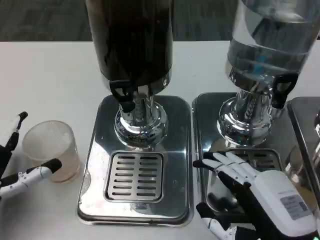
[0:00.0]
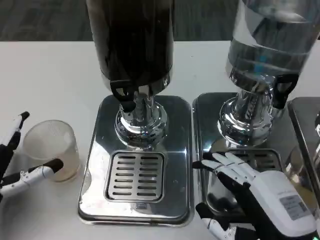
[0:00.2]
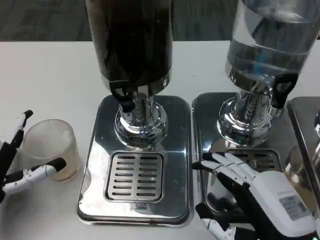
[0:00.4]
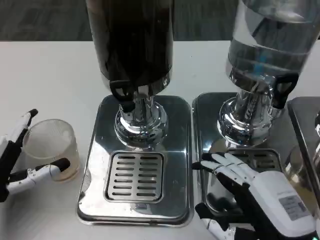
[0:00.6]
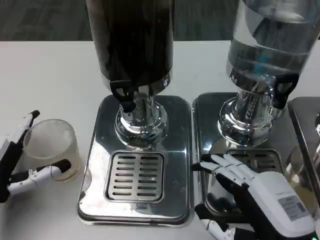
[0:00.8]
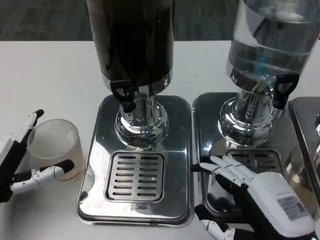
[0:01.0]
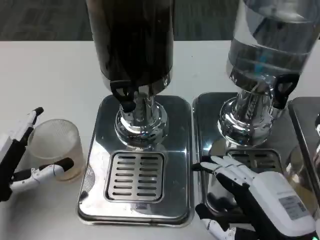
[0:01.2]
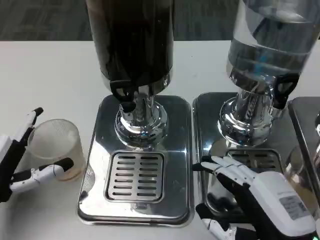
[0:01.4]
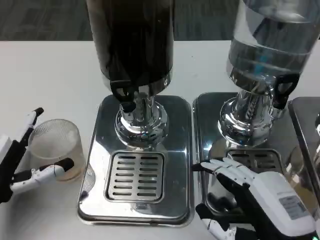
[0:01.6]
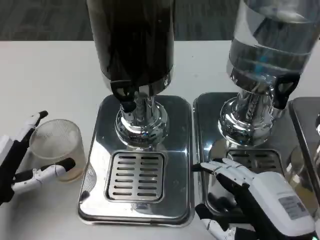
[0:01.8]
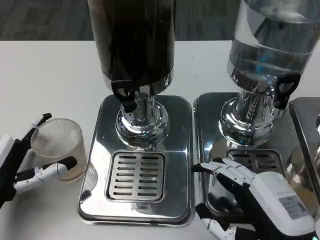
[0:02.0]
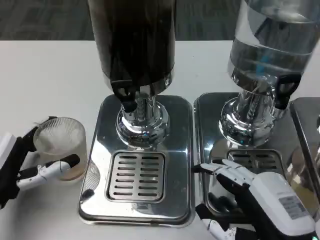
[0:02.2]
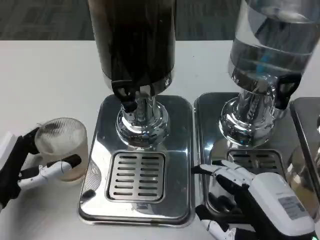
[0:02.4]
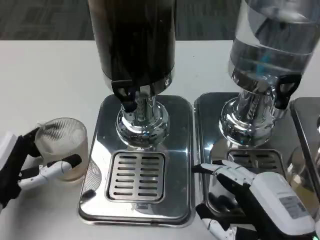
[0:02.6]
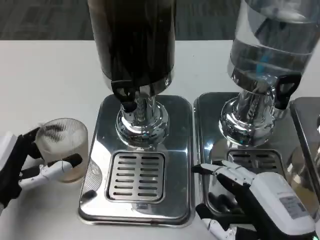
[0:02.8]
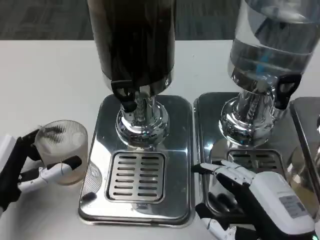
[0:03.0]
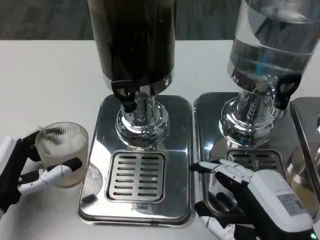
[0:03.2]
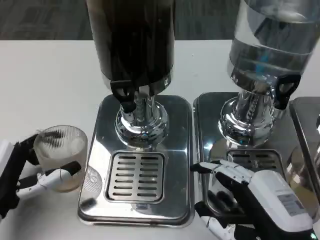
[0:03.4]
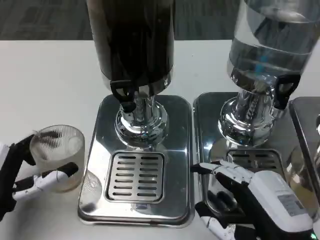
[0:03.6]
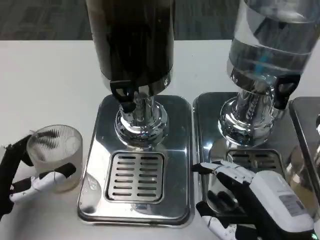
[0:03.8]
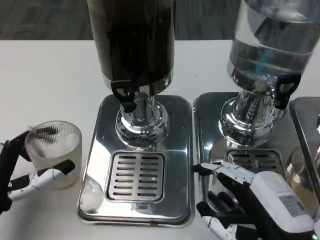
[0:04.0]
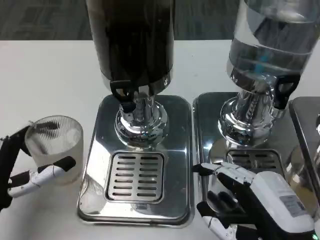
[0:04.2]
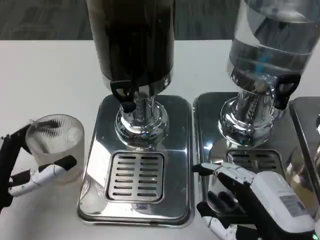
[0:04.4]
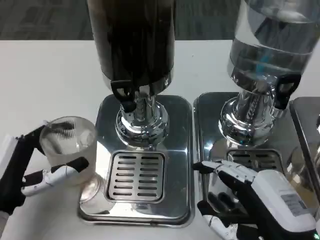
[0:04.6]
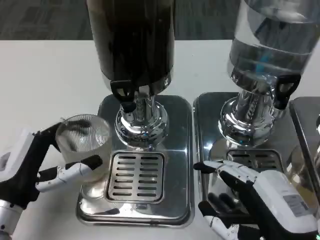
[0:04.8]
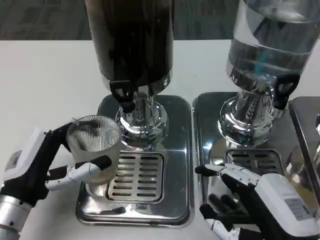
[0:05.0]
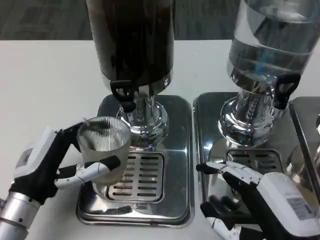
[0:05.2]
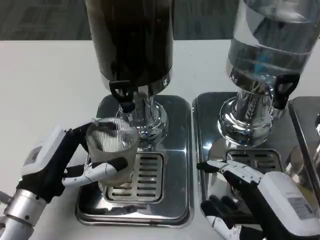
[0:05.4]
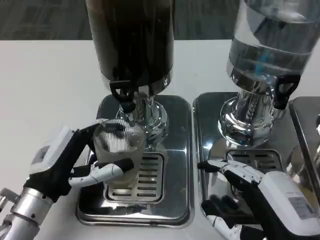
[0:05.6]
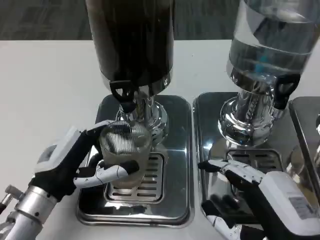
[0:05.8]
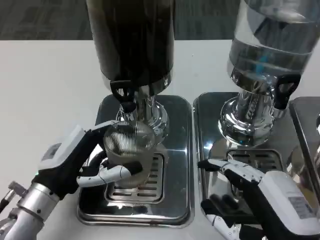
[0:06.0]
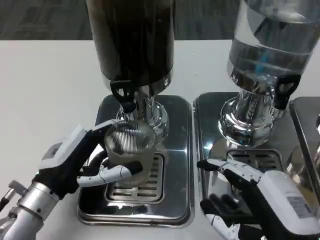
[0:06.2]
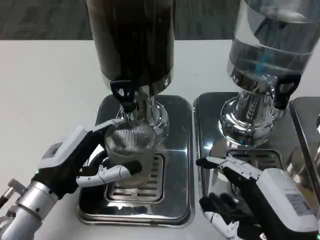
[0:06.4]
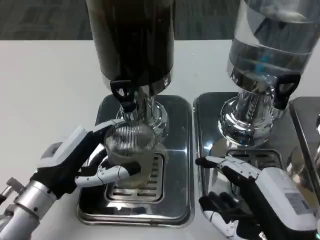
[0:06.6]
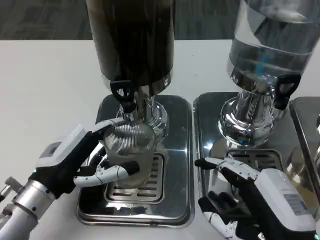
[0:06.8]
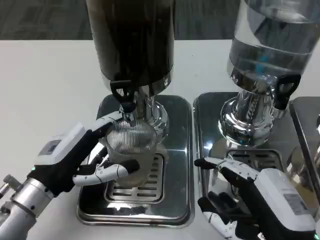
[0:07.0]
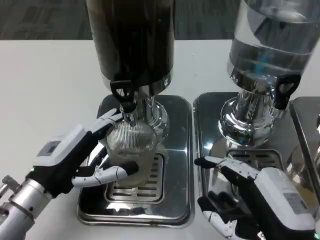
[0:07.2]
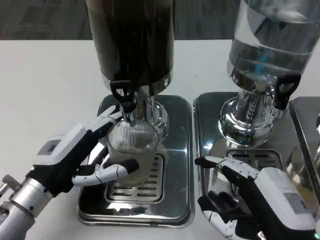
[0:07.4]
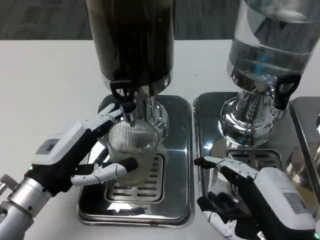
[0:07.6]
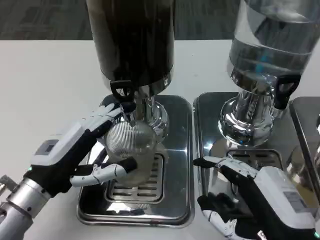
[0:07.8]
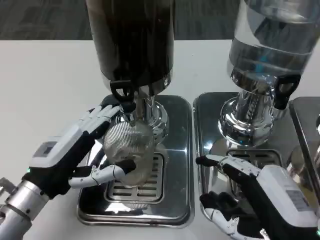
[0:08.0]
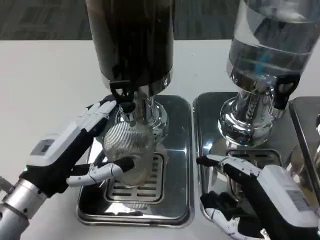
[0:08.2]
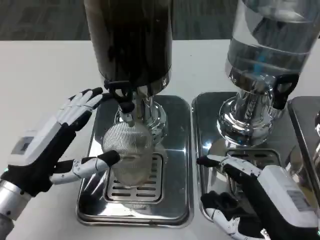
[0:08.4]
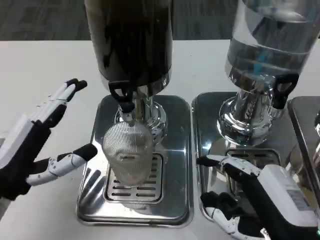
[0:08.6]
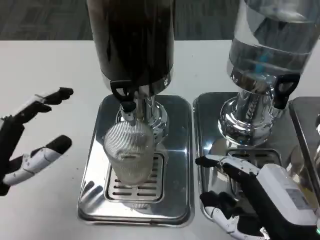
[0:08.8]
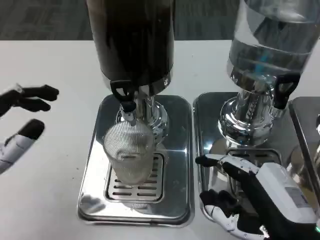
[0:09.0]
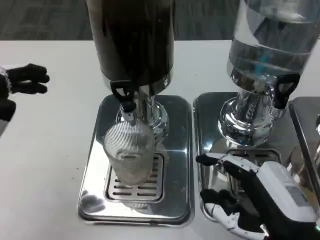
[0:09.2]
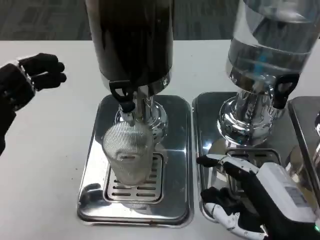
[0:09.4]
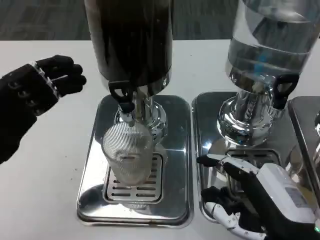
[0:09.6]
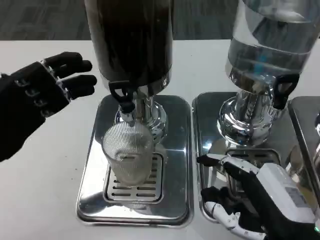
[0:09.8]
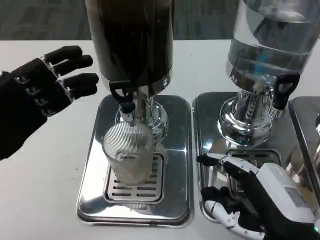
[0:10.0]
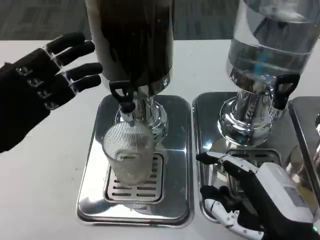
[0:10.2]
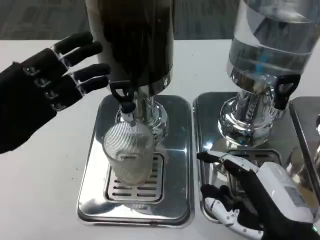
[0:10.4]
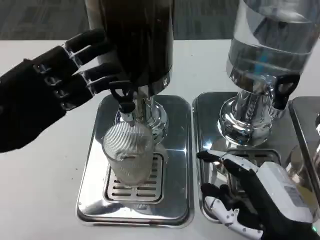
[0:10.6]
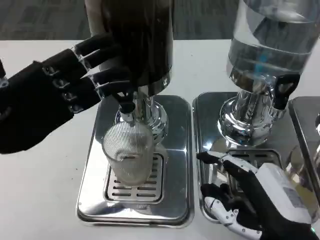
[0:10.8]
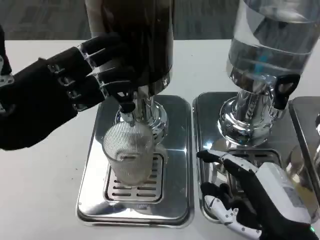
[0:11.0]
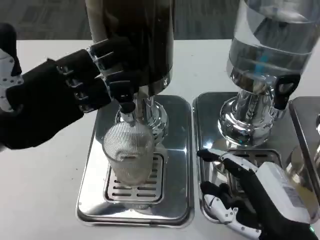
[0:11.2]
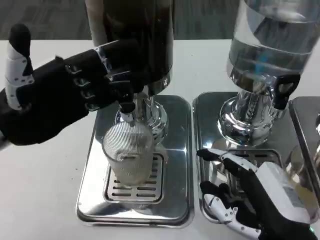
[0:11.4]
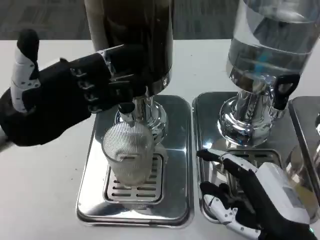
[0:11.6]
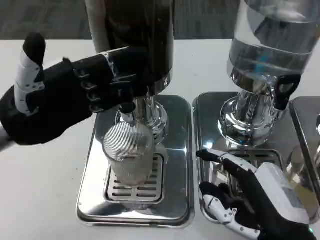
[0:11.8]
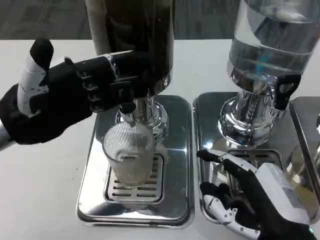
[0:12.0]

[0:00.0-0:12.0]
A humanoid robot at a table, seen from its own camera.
Task of the whole recording: Grasp the cup under the faucet to collect the drink, then remove the cup.
0:00.0 to 0:04.4: There are only small adjustments of the hands.
0:04.4 to 0:06.0: The left hand is displaced to the right by about 5 cm.
0:06.0 to 0:07.6: There are only small adjustments of the hands.
0:07.6 to 0:09.0: The left hand ends up about 10 cm from where it was.
0:09.0 to 0:10.4: The left hand goes about 10 cm forward and upward.
0:10.4 to 0:12.0: There are only small adjustments of the hands.

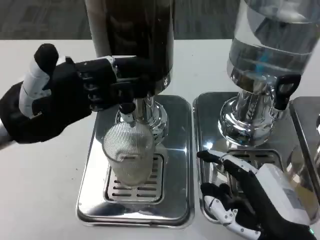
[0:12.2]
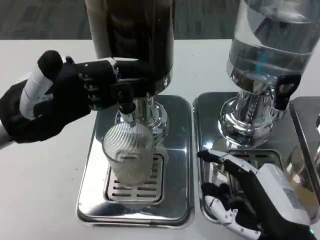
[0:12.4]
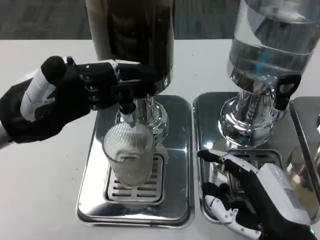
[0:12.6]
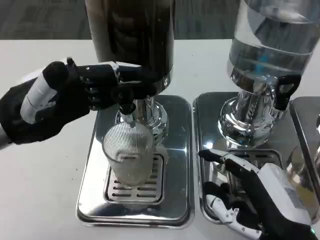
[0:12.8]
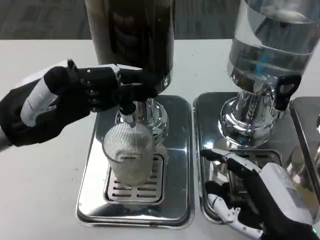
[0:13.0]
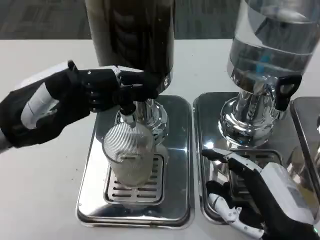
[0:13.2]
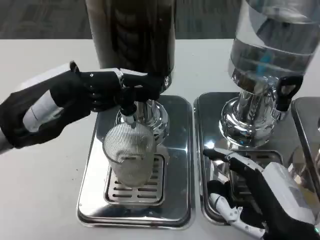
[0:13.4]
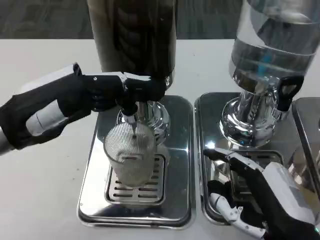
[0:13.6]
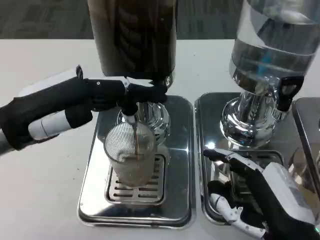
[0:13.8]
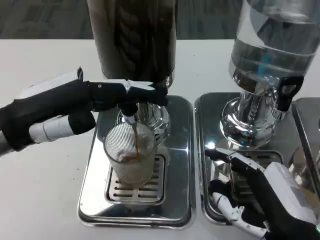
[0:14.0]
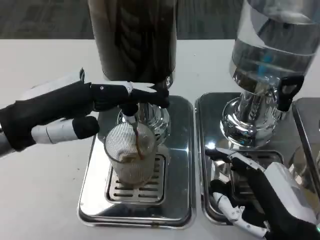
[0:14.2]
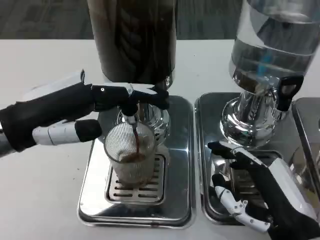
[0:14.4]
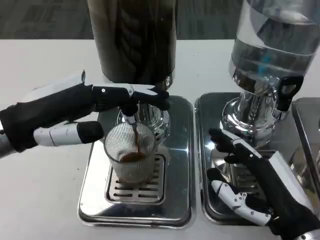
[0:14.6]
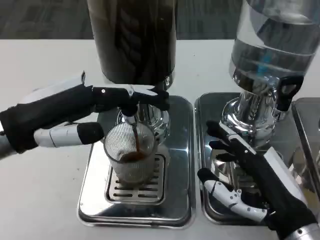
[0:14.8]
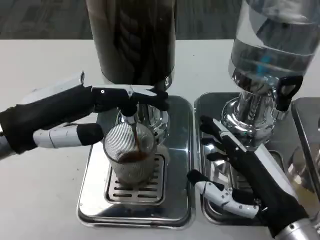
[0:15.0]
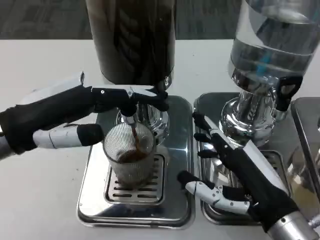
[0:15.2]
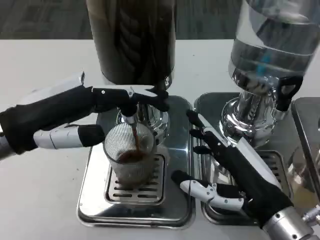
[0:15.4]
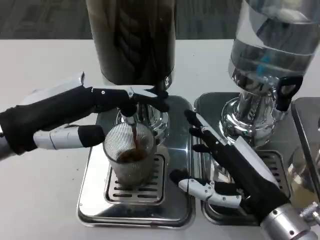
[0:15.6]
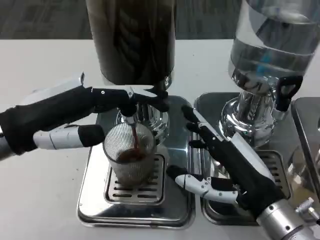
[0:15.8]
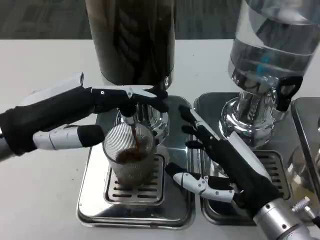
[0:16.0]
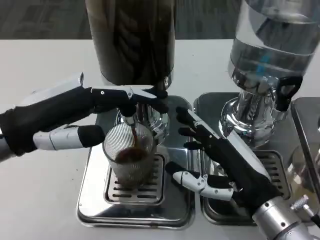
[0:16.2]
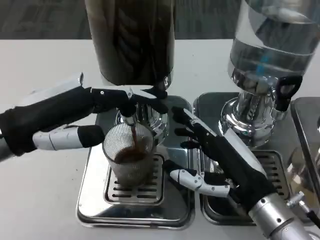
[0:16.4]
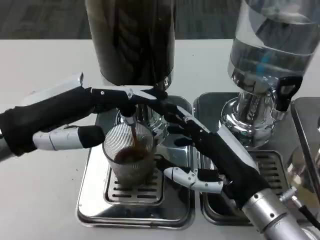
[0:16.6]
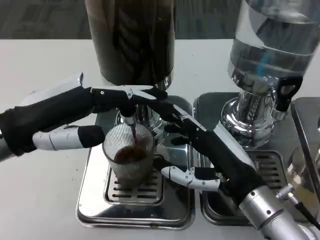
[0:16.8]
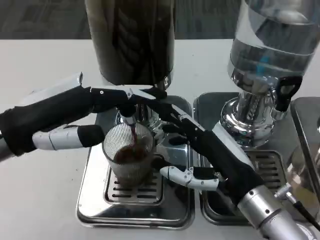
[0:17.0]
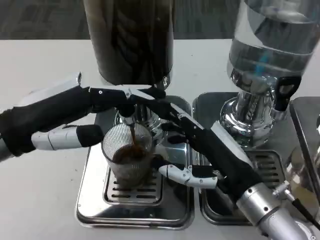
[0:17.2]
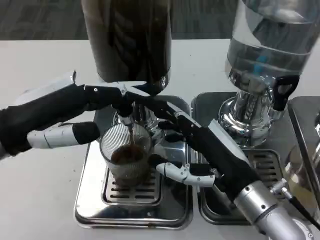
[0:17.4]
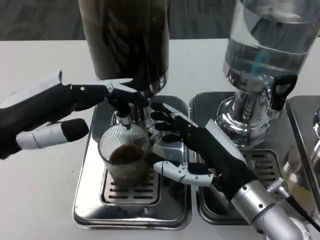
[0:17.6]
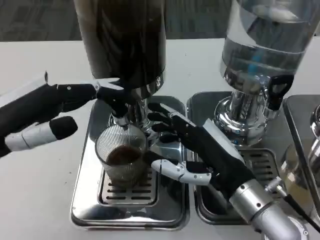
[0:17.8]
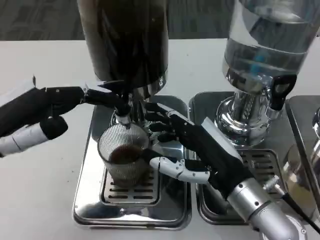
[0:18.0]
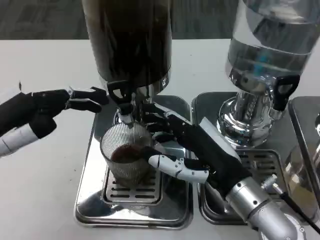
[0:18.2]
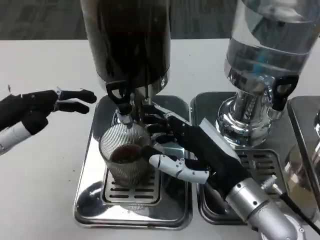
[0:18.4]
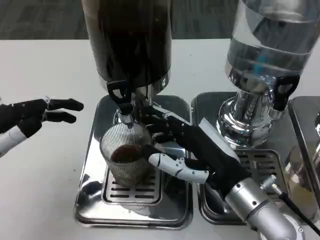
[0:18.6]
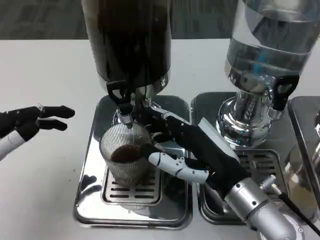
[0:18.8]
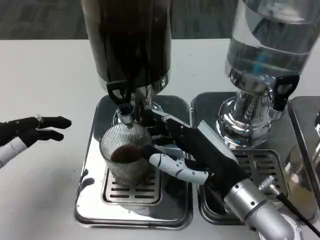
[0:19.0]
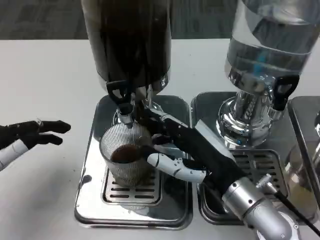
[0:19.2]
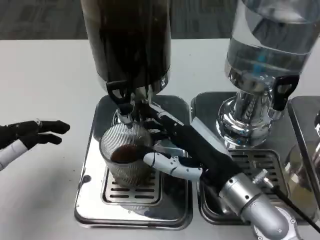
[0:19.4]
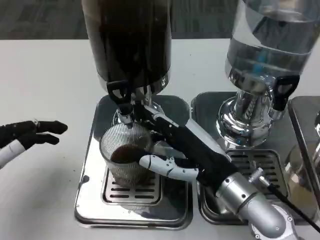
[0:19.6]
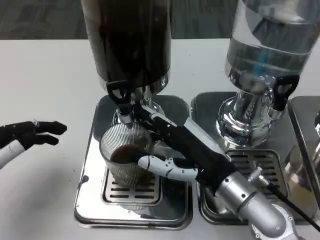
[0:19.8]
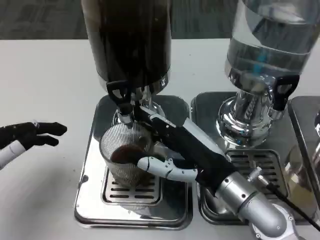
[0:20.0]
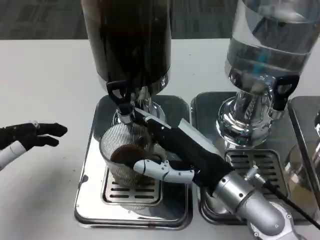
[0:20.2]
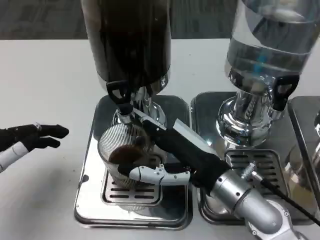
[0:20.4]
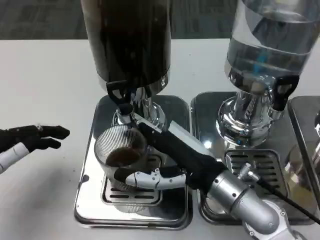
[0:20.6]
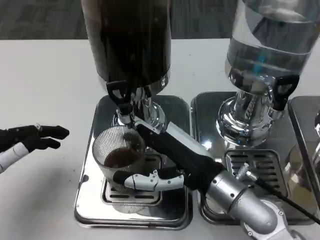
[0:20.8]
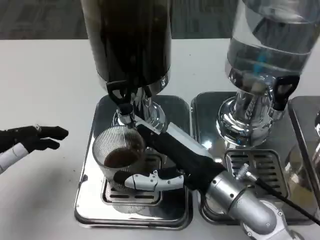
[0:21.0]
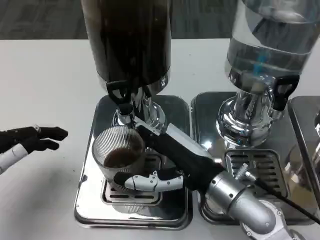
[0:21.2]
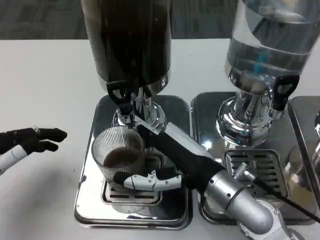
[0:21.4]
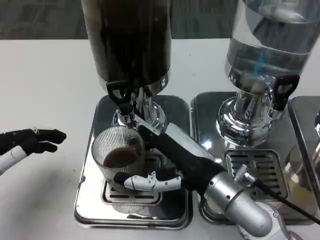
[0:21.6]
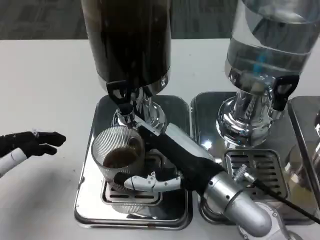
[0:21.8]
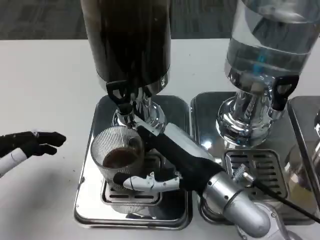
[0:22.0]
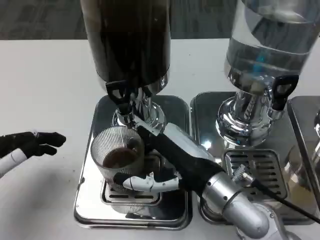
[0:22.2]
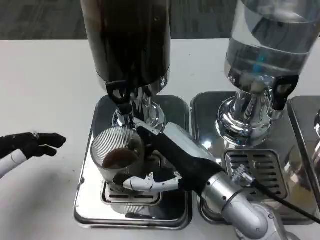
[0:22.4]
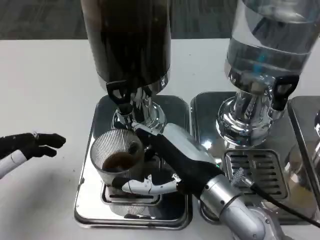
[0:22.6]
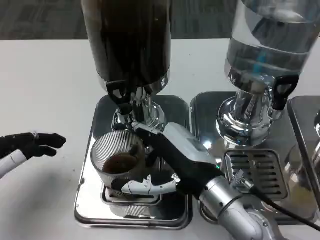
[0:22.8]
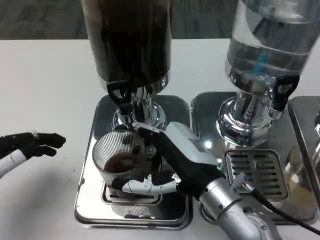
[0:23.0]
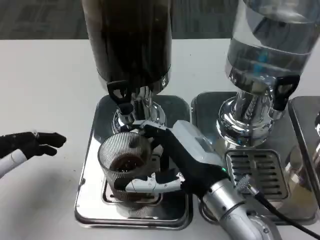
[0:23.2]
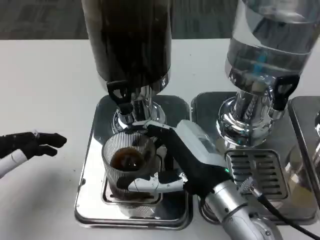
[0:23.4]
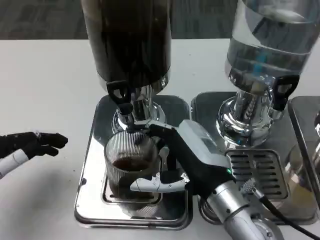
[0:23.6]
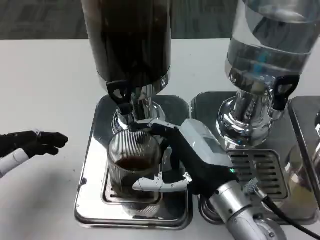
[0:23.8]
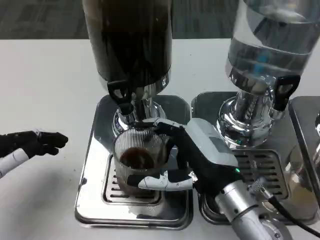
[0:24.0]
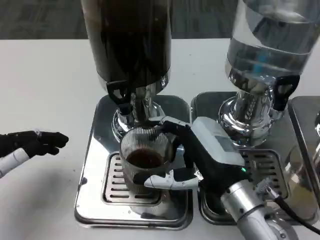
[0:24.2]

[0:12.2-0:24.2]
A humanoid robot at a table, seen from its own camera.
Task of the whole recording: Grasp the cup under the faucet to collect the drink, then remove the cup.
0:15.2 to 0:16.6: The hands move only a little.
0:16.6 to 0:18.2: The left hand shifts by about 5 cm.
0:18.2 to 0:19.8: The left hand travels downward by roughly 5 cm.
0:19.8 to 0:22.6: The hands stay close to where they were, moving slightly.
0:22.6 to 0:24.2: The hands stay close to where they were, moving slightly.
